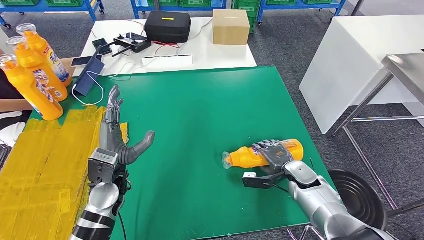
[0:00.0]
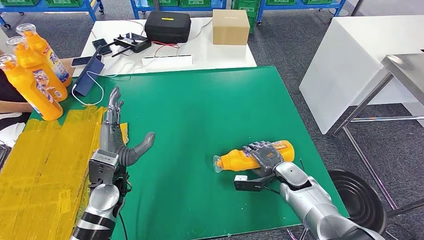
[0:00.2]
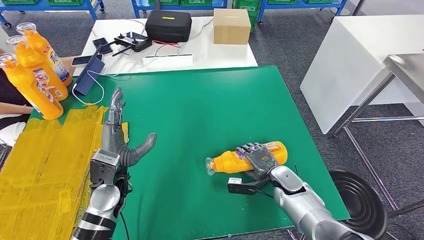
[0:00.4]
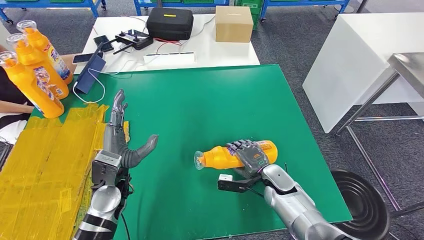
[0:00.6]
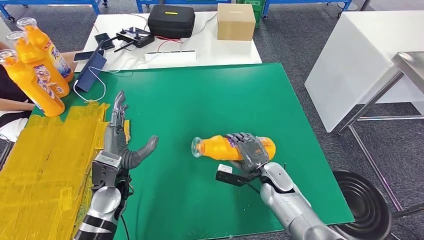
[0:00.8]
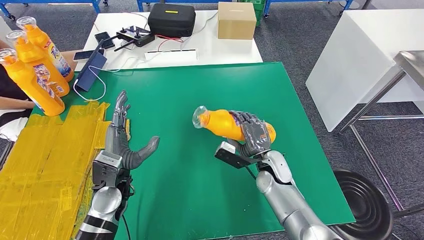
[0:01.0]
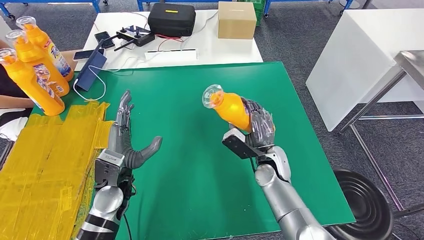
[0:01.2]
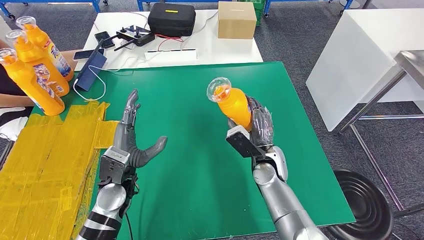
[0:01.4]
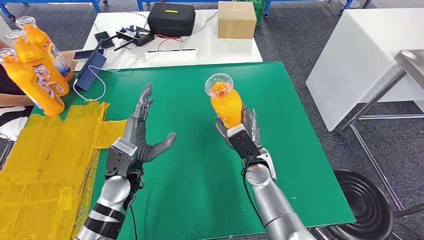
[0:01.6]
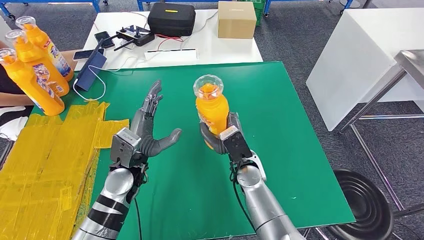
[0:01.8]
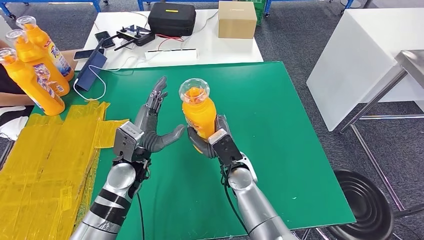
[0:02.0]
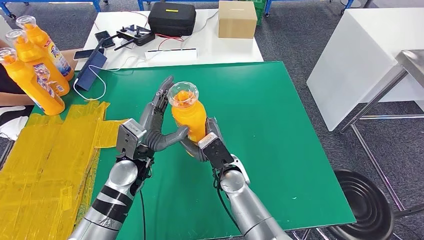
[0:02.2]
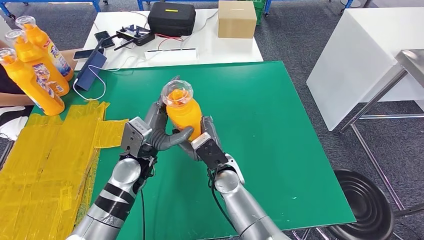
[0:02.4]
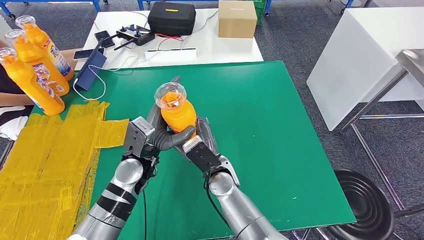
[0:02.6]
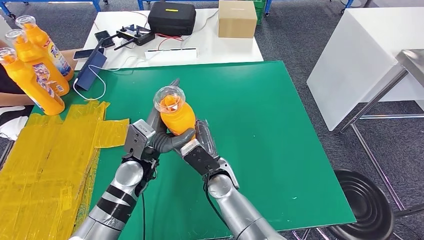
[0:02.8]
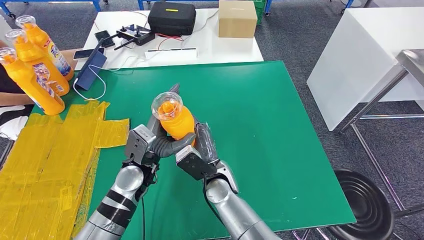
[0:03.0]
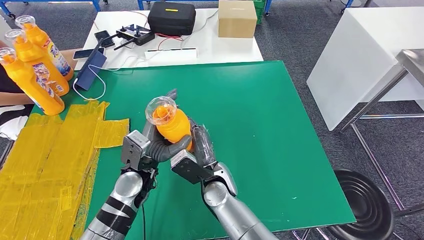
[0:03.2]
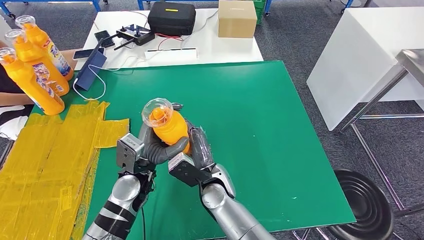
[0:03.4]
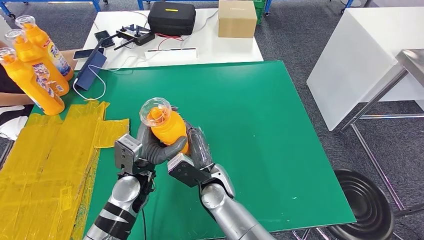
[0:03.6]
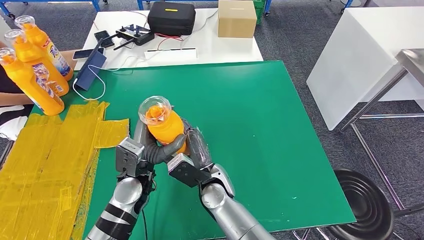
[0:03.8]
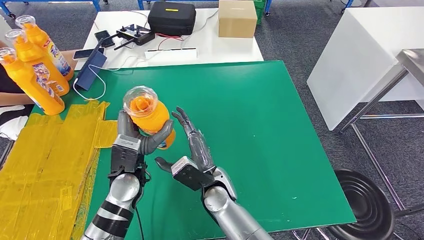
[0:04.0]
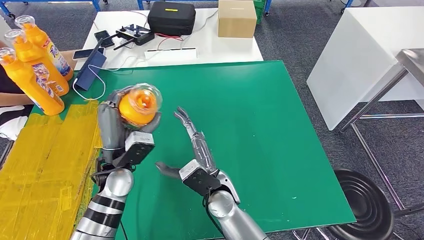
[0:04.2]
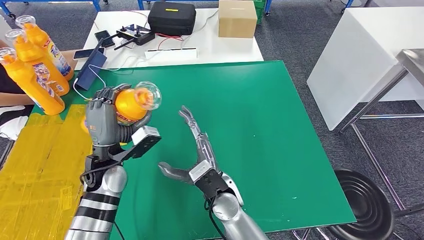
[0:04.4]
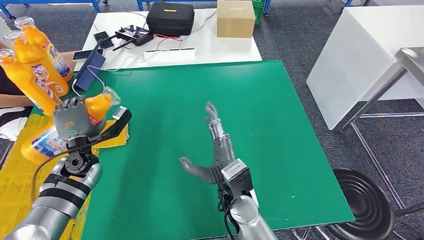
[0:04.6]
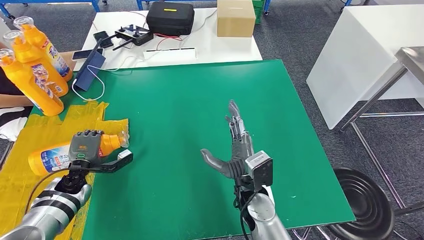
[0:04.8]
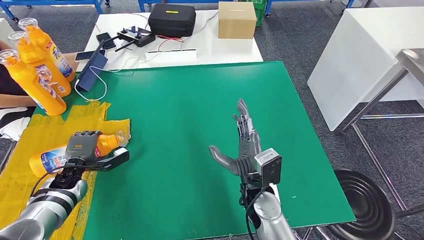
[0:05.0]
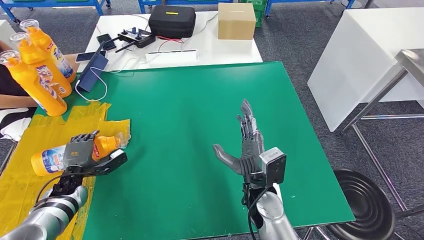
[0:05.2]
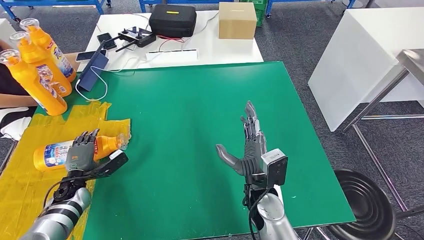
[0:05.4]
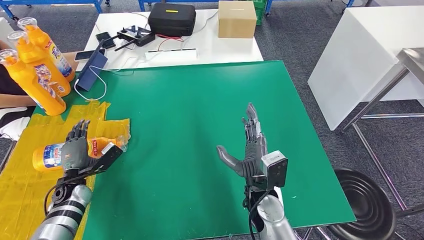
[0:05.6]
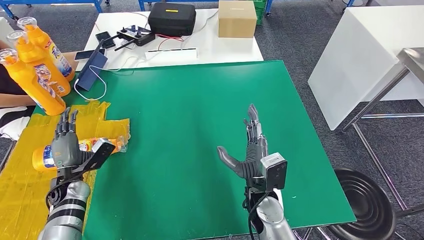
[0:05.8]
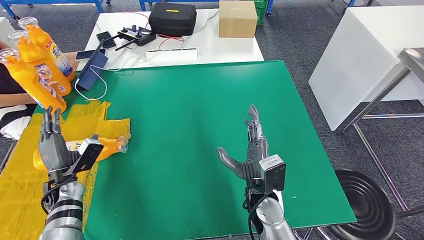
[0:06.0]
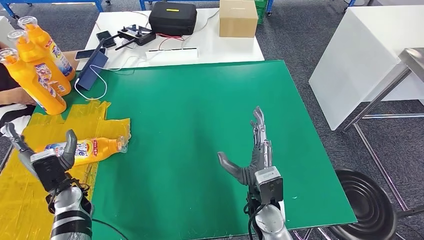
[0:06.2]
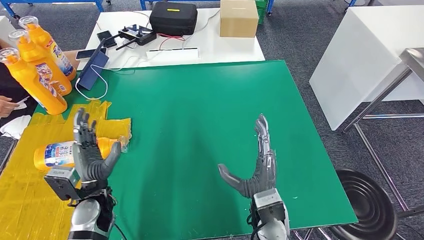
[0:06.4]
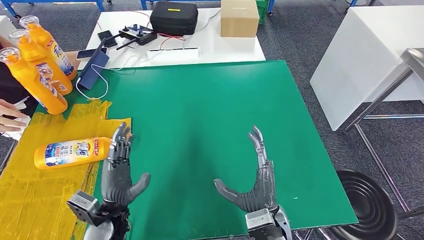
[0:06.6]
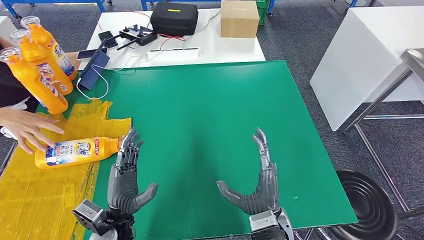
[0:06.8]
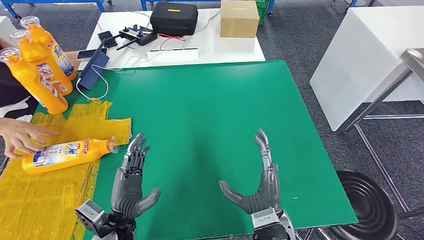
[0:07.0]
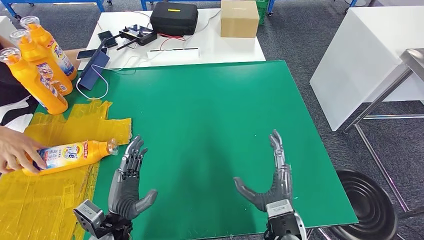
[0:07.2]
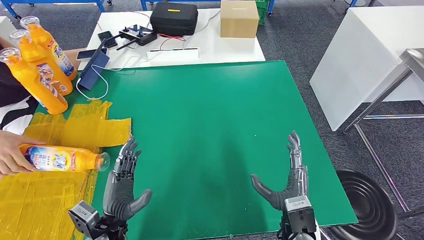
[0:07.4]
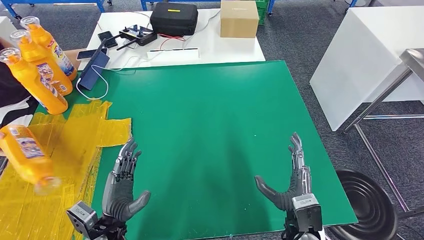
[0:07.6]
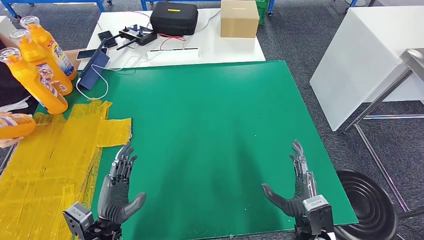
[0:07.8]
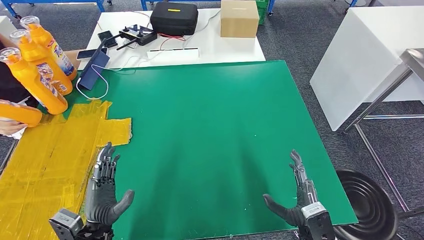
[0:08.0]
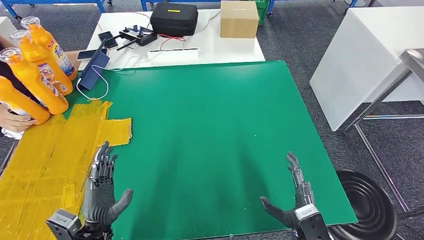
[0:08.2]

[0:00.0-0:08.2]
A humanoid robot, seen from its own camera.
Step, 0:01.4 to 0:08.2: Flip the fast-moving consumer goods bottle to the front side.
0:01.6 to 0:03.2: The right hand travels to the left by about 10 cm.
0:06.6 to 0:08.2: The right hand goes about 10 cm to the right and downward. The left hand changes place by about 5 cm.
